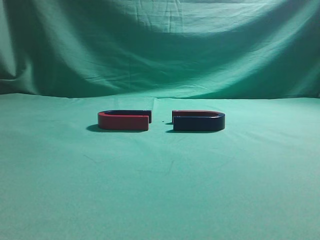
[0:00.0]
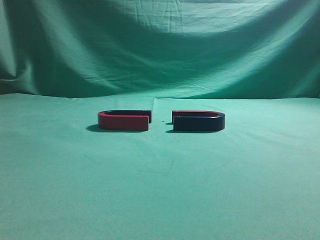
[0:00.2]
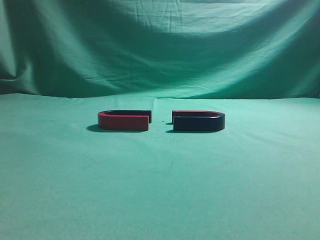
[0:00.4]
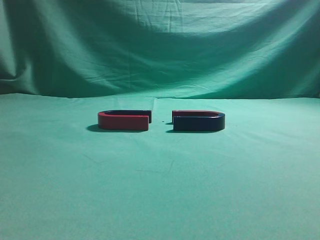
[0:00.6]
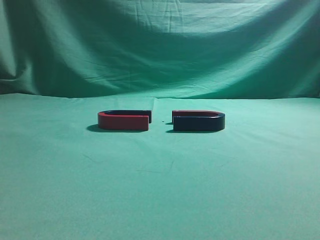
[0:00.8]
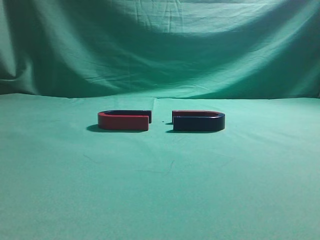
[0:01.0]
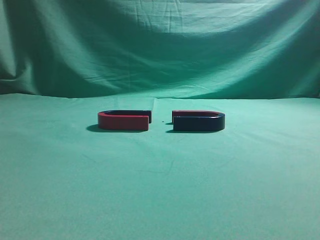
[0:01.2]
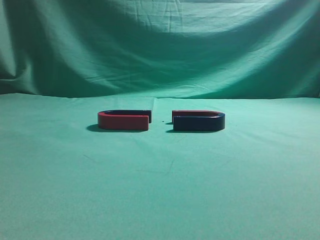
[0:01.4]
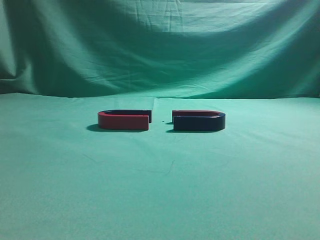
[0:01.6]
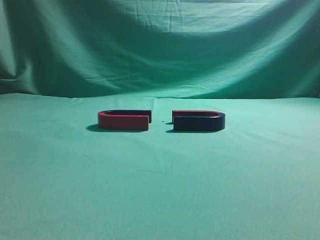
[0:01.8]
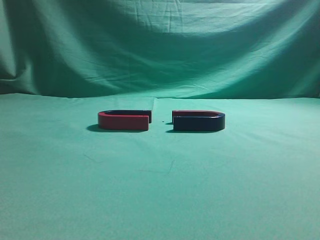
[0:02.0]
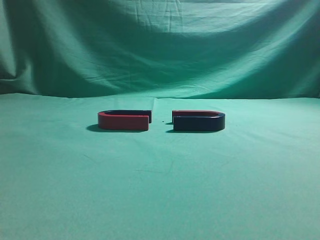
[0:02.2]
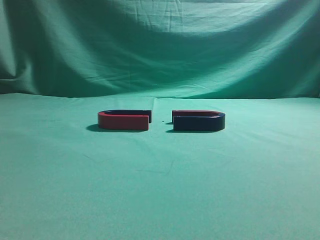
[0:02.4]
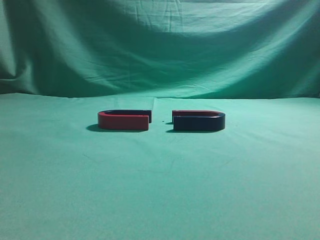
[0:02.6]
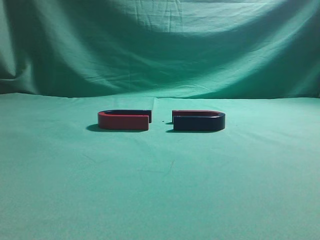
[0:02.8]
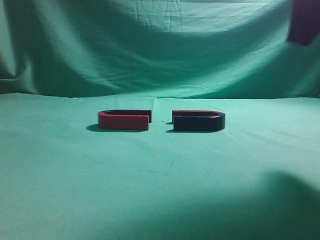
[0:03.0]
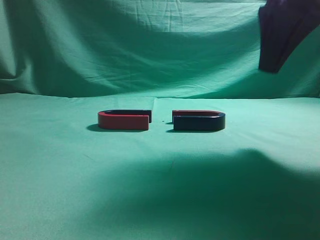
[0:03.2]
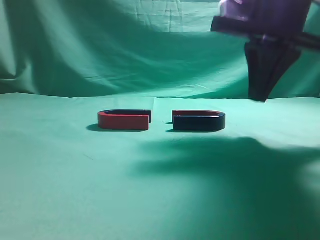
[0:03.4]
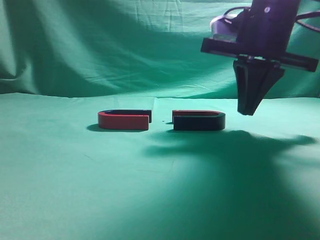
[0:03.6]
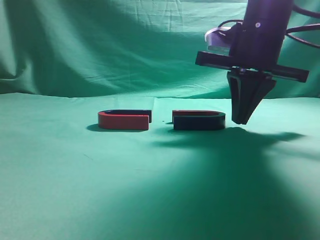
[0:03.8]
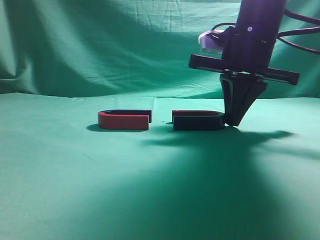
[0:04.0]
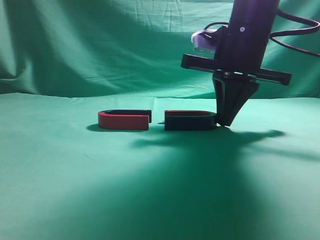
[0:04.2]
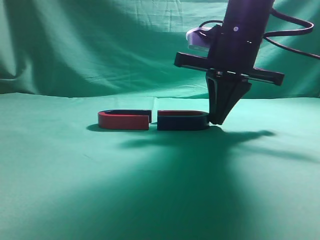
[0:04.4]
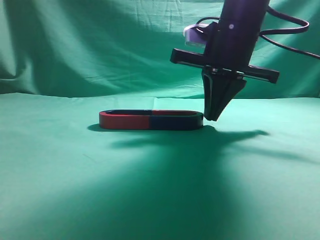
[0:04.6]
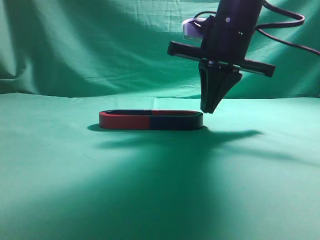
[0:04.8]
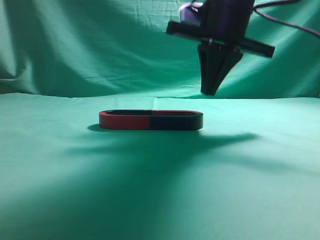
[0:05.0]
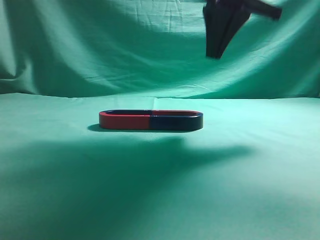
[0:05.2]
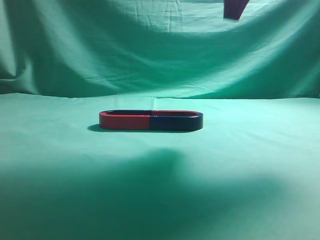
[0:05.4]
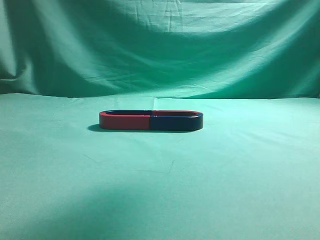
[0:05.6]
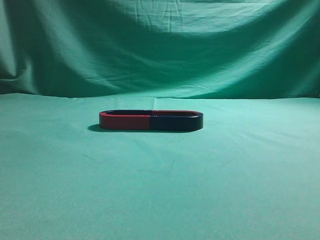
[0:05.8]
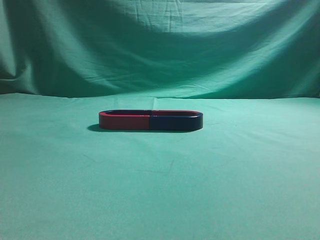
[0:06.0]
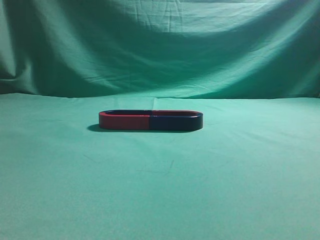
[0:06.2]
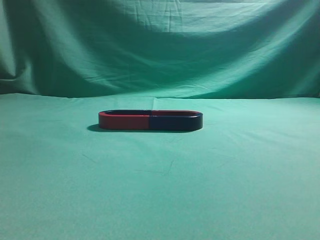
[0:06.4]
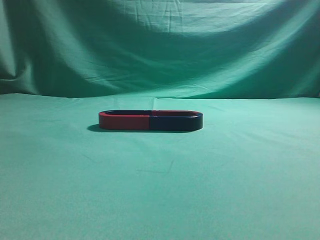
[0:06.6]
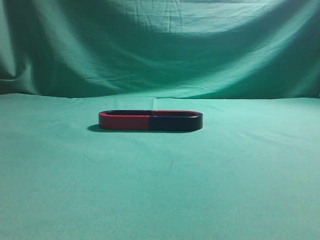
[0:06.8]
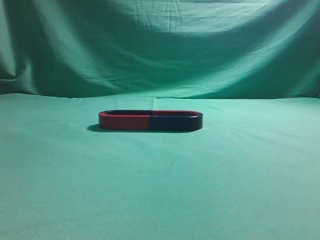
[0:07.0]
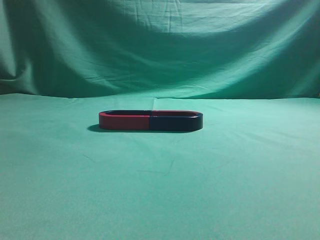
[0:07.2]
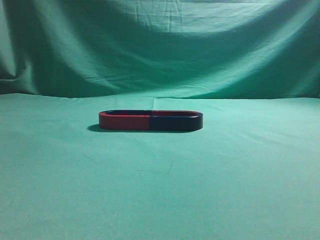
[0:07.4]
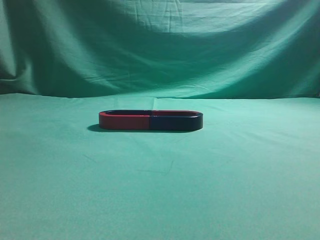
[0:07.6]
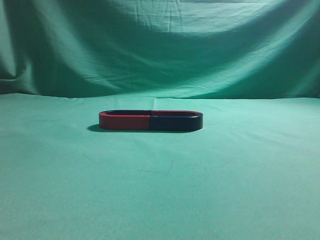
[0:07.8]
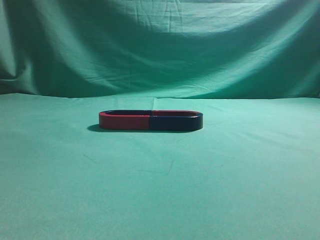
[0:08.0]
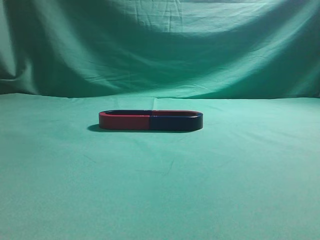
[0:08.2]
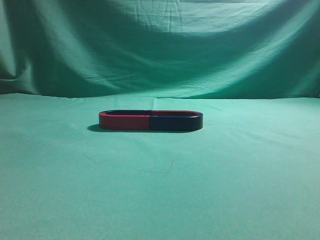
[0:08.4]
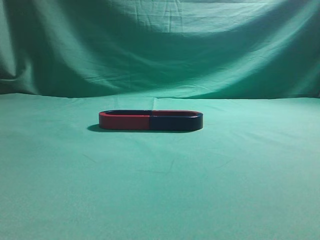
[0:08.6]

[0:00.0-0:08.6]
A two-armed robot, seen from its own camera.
Task of the whole recording: push the magnet on the table from its original position to another position.
Step, 0:00.0 to 0:04.8: Push the magnet on the right to connect the magnet on the left.
0:02.8 to 0:04.4: The right gripper goes some 20 cm forward, downward and to the left.
0:04.4 to 0:05.8: The right gripper shifts roughly 25 cm upward and backward.
0:05.8 to 0:07.2: The right gripper shifts approximately 25 cm backward and to the right.
